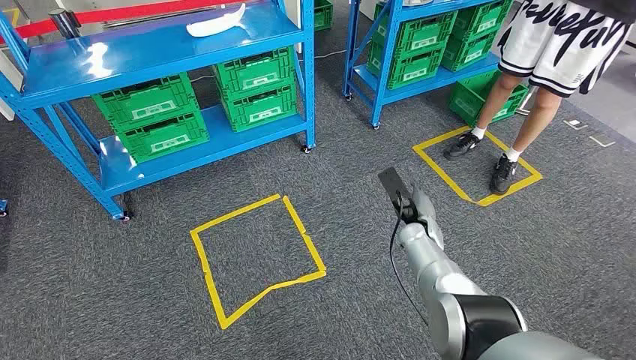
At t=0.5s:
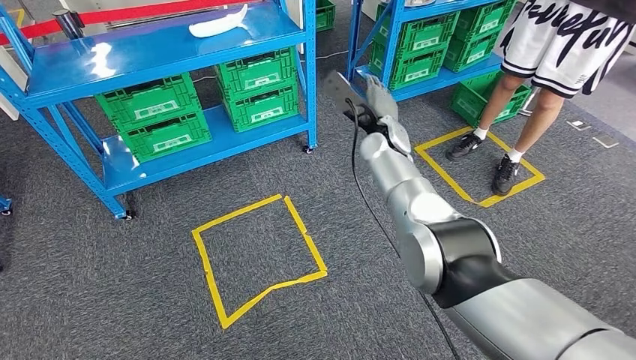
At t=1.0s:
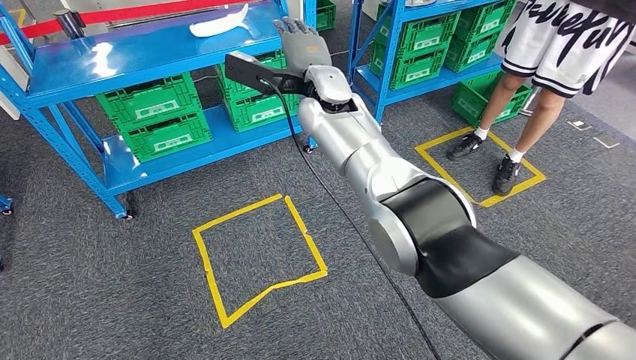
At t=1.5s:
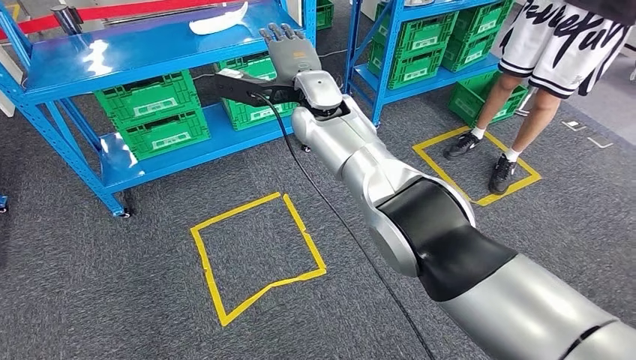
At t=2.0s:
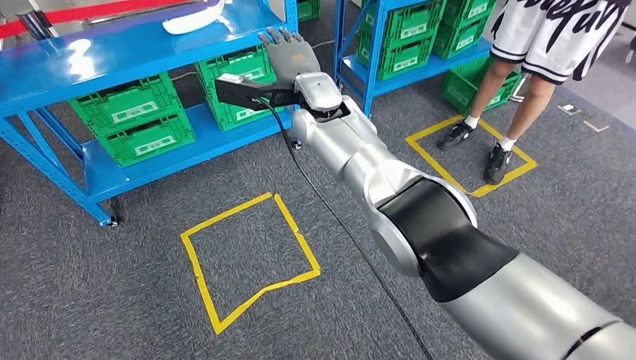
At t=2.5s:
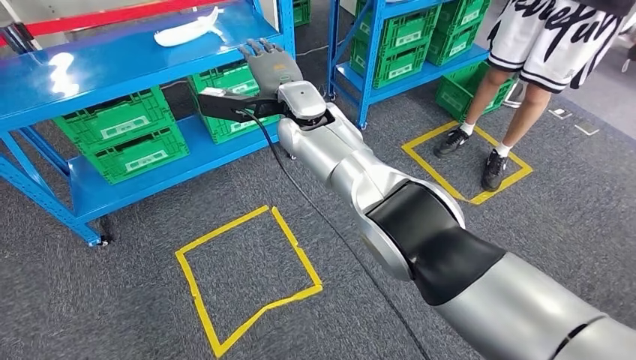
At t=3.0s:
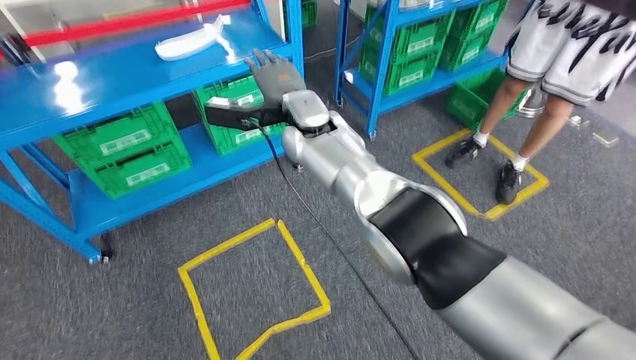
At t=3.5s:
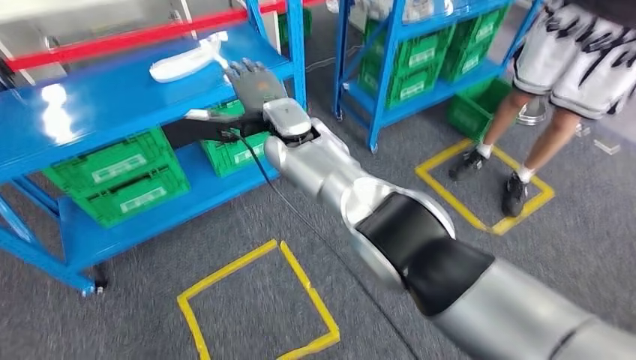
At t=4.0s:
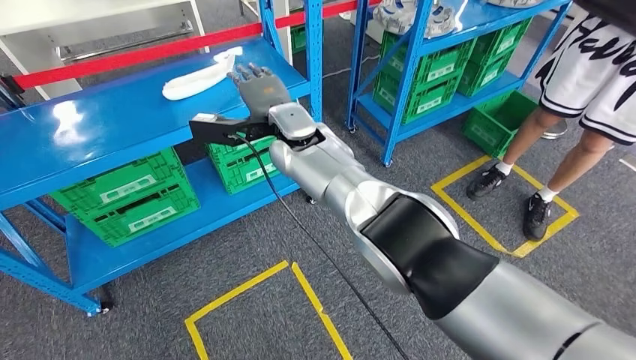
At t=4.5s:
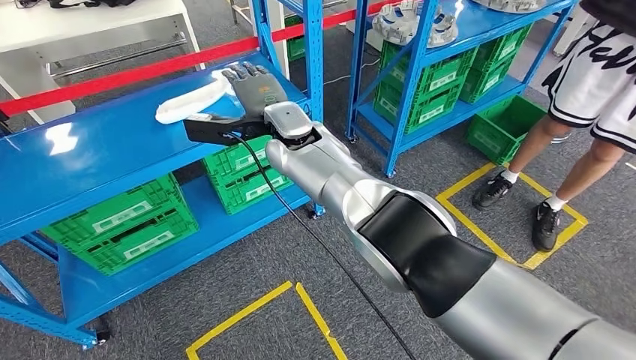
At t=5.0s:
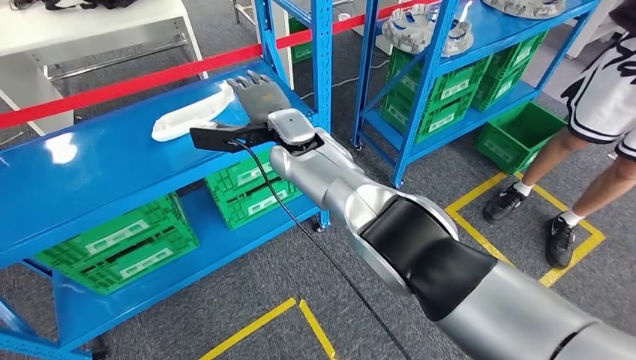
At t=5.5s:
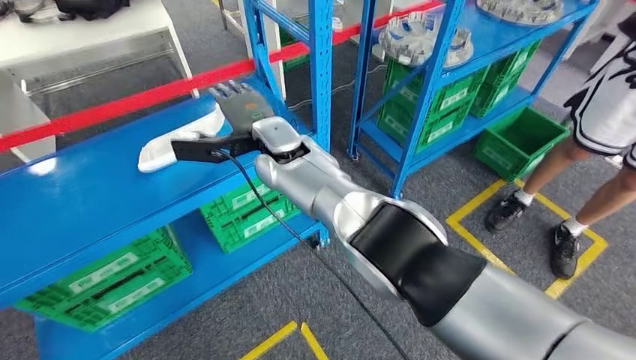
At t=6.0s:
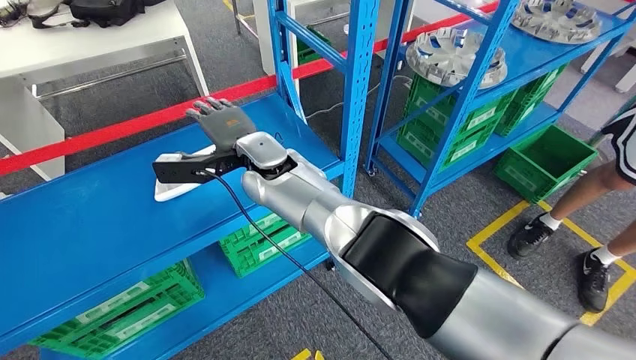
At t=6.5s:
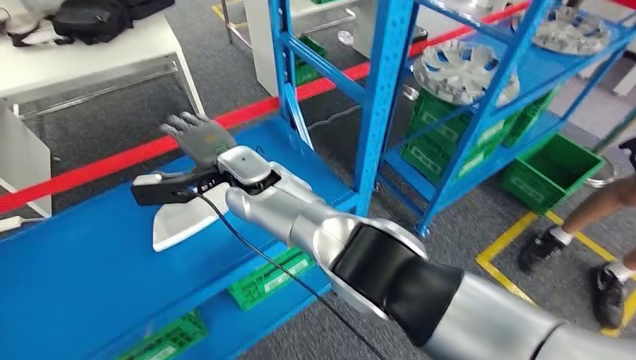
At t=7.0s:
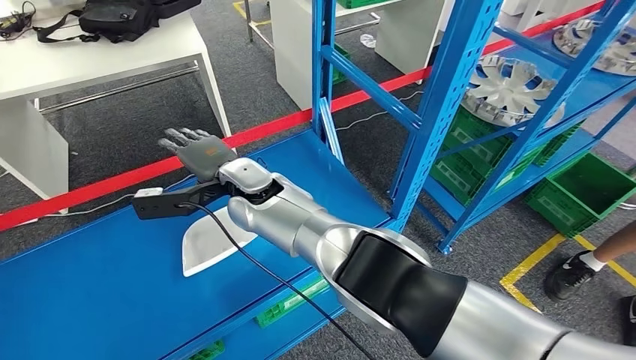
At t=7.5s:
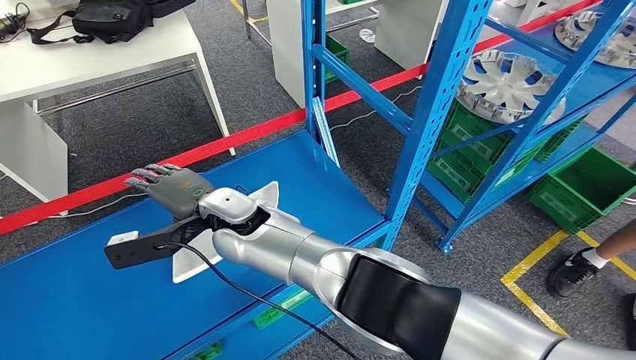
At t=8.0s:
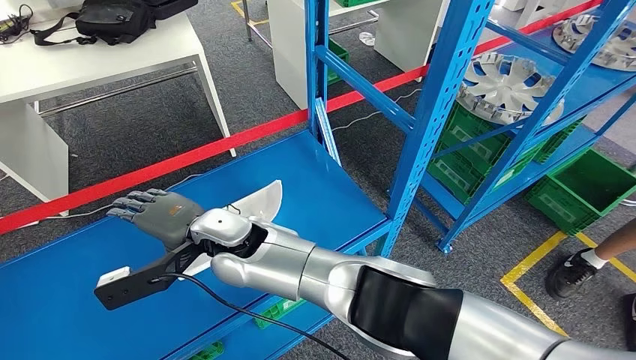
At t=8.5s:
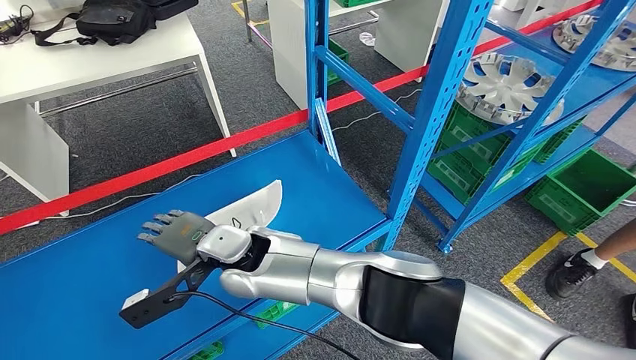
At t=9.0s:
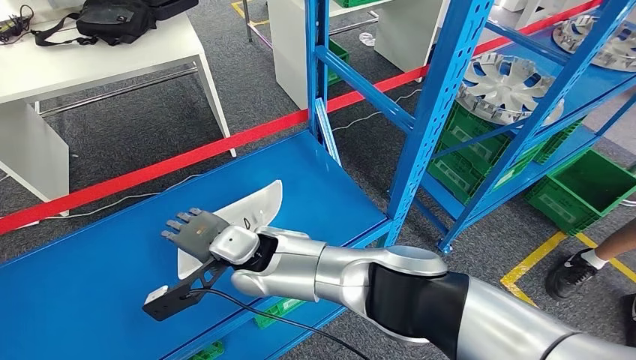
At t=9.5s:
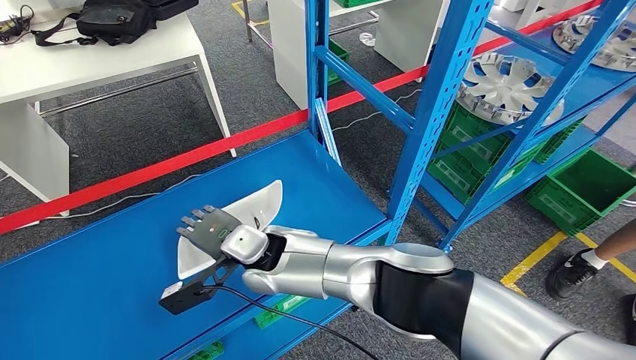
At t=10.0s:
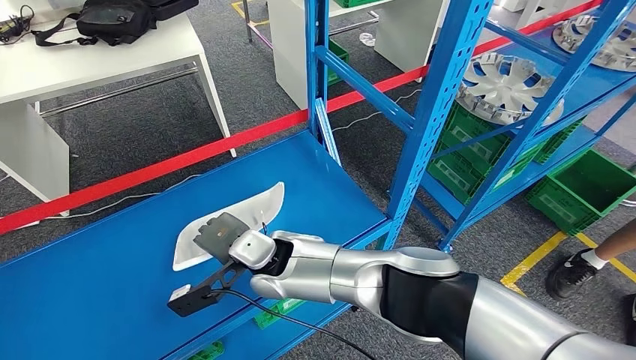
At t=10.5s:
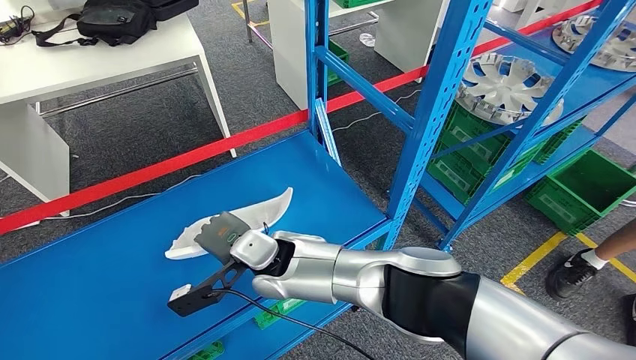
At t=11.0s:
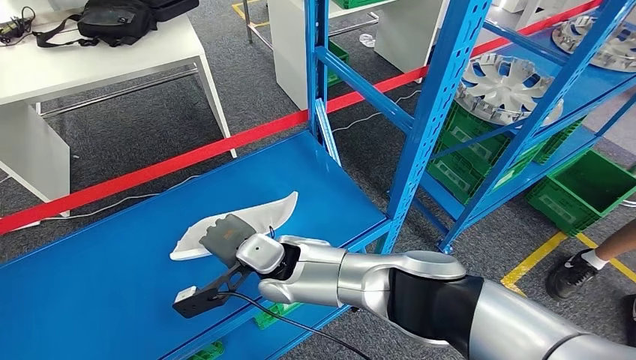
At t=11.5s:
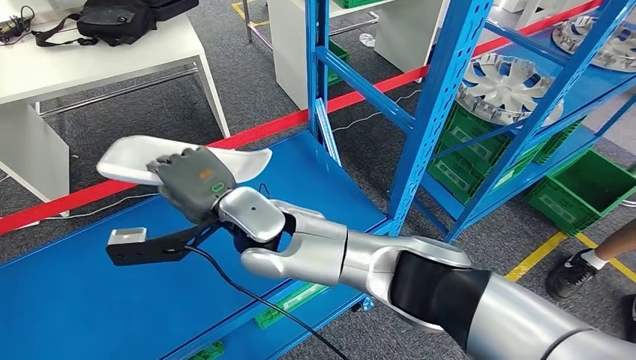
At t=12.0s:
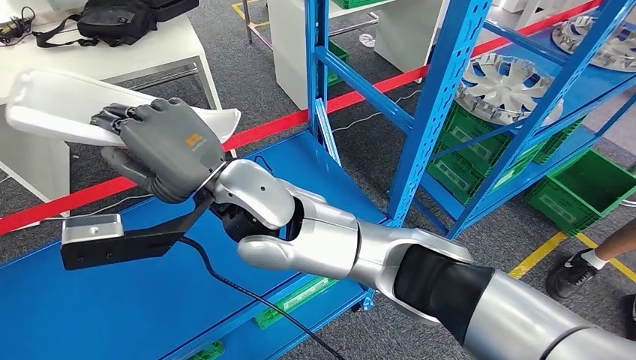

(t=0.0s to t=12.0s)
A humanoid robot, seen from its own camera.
t=8.0s - t=10.0s: The right hand travels to the right and downward by about 5 cm.

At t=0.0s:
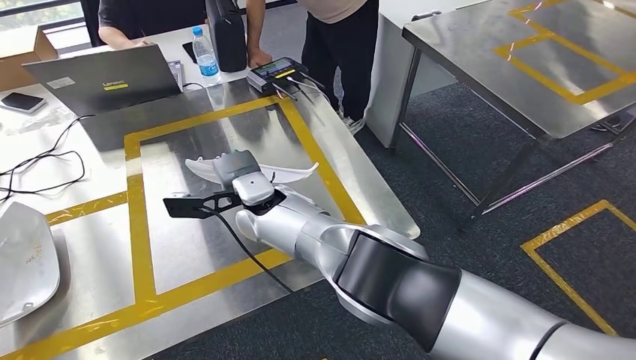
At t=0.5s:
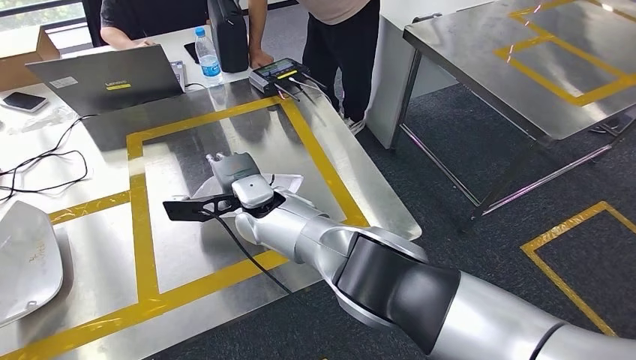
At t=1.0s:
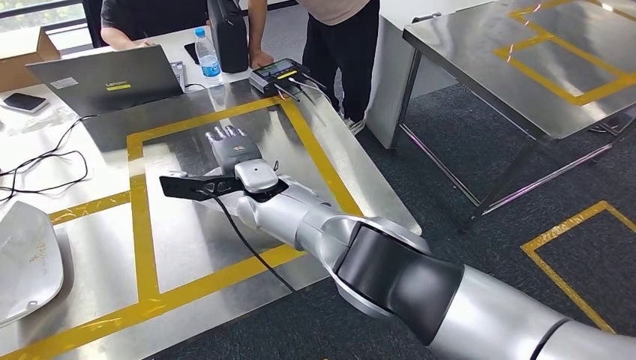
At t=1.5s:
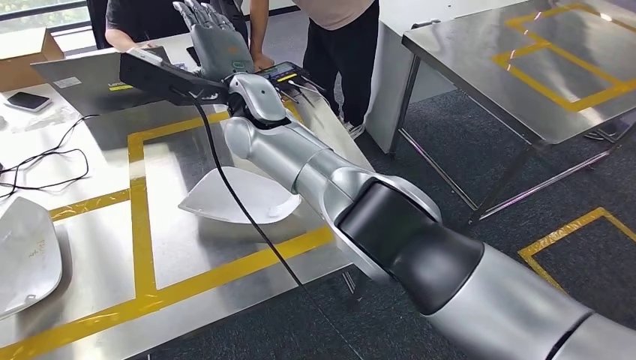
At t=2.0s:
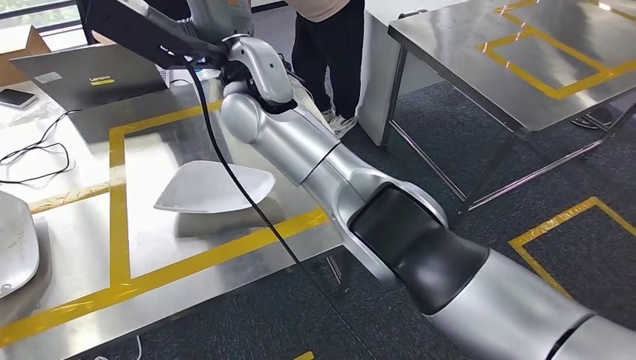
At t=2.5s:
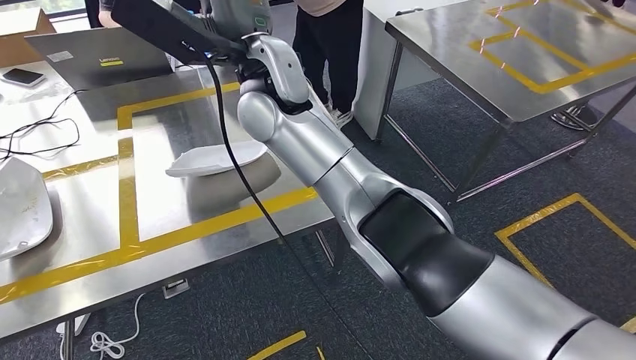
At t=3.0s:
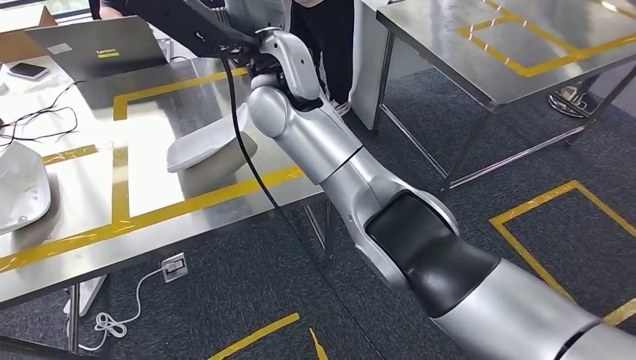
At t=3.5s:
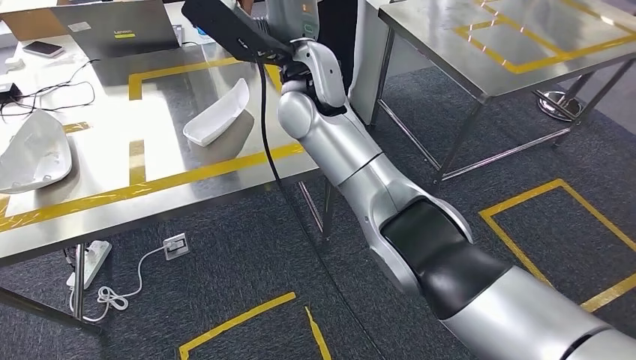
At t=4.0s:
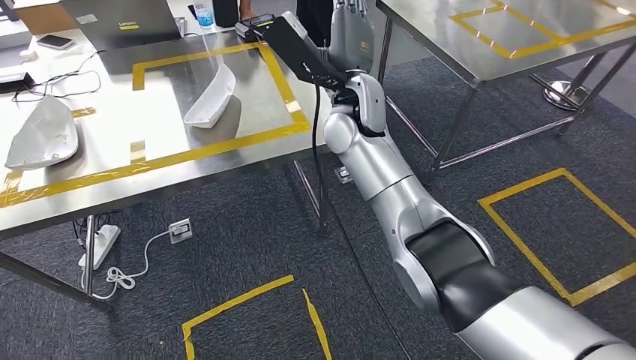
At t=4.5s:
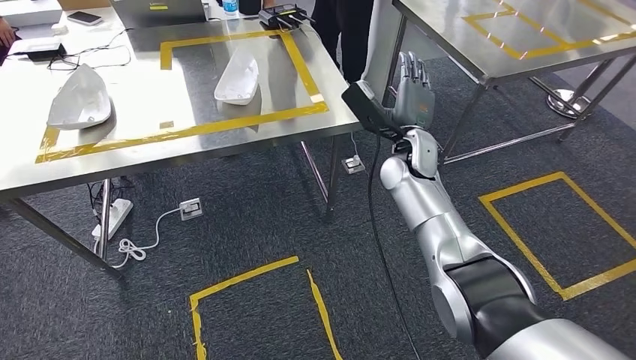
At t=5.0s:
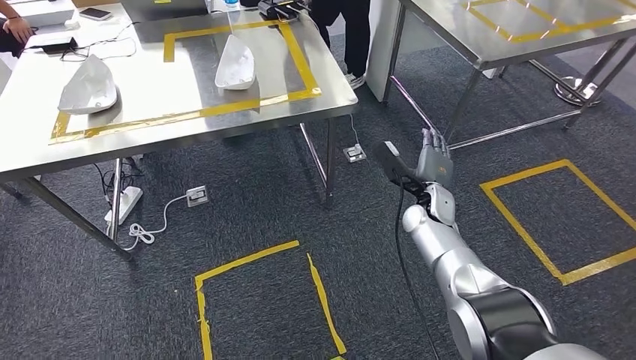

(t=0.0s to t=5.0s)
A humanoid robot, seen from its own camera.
Step, t=2.5s - t=4.5s: Return to the initial position at the workbench.
